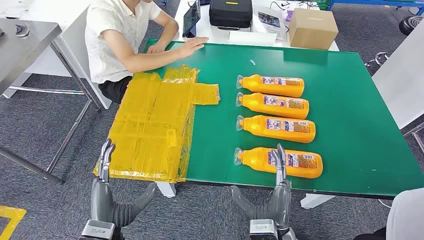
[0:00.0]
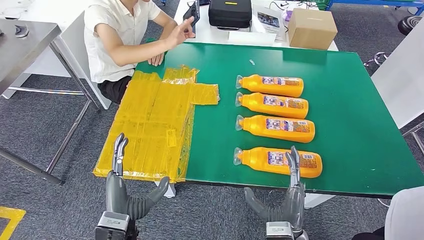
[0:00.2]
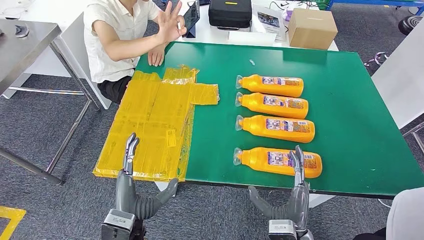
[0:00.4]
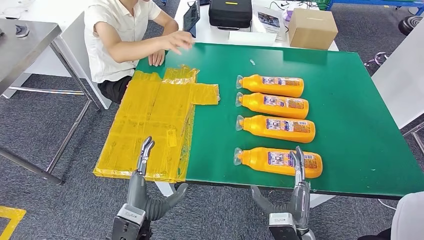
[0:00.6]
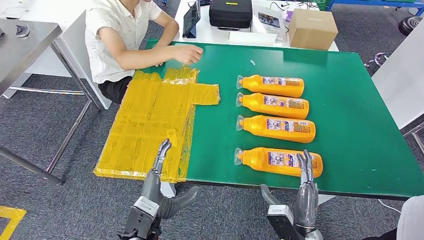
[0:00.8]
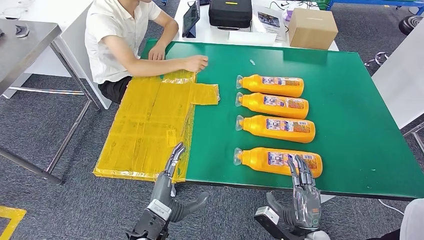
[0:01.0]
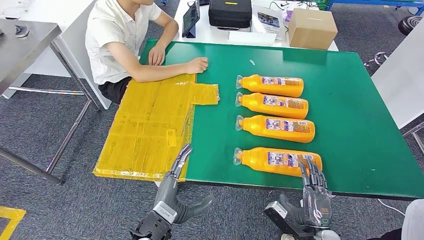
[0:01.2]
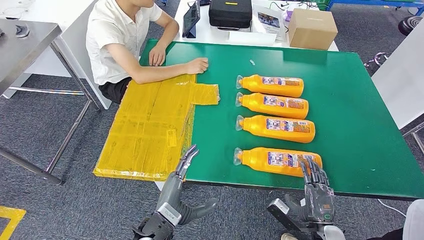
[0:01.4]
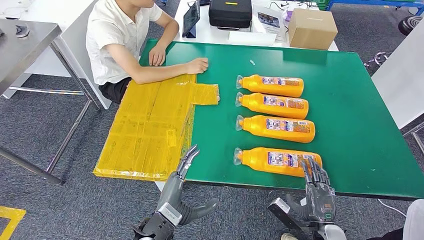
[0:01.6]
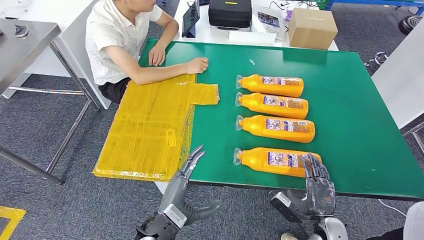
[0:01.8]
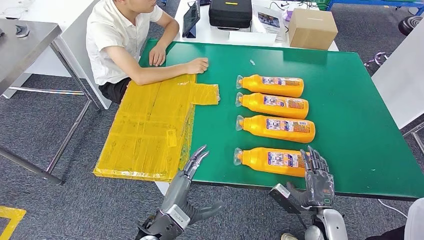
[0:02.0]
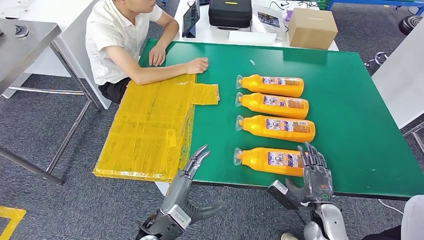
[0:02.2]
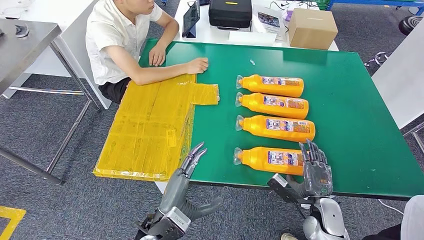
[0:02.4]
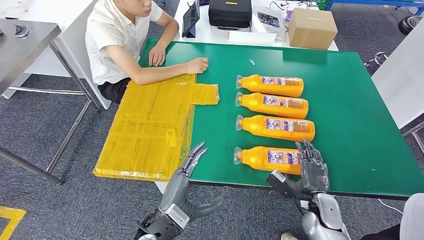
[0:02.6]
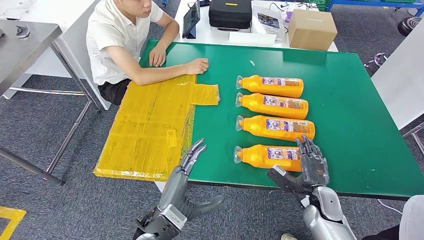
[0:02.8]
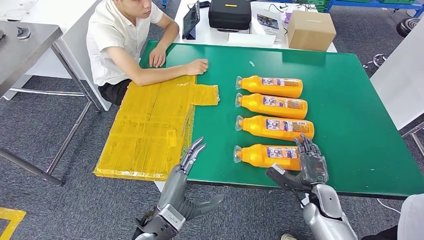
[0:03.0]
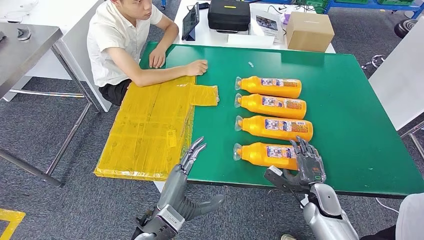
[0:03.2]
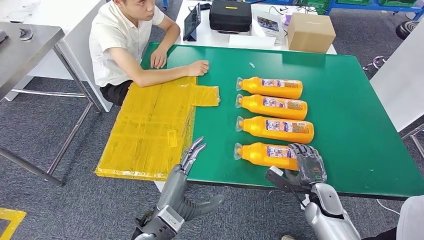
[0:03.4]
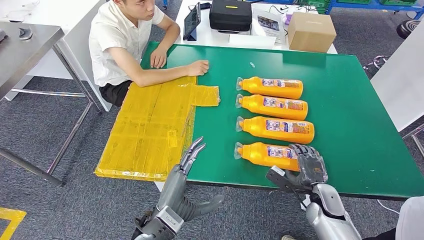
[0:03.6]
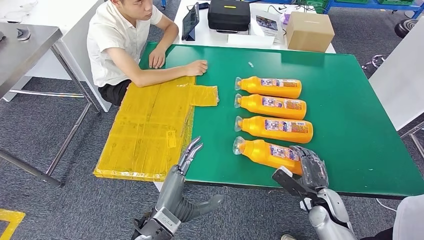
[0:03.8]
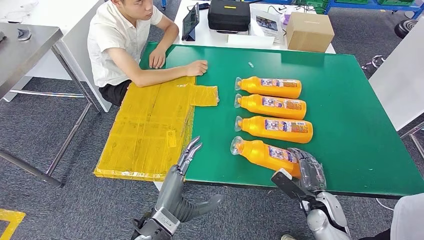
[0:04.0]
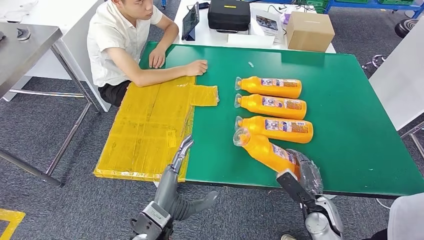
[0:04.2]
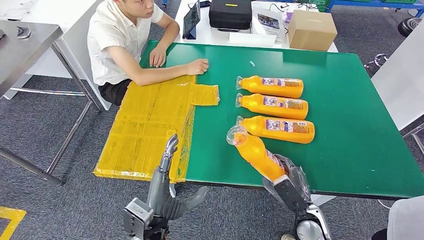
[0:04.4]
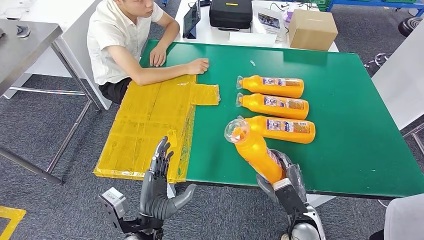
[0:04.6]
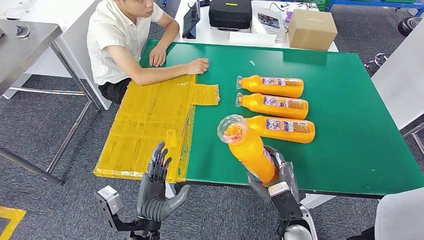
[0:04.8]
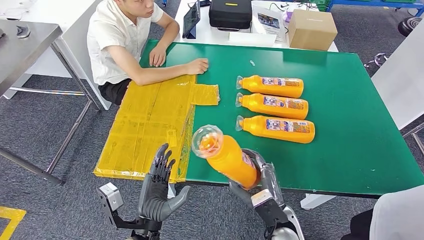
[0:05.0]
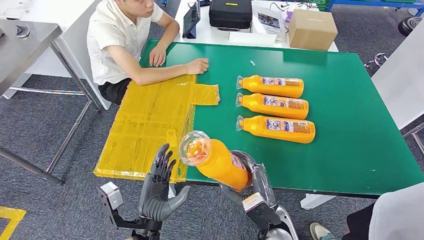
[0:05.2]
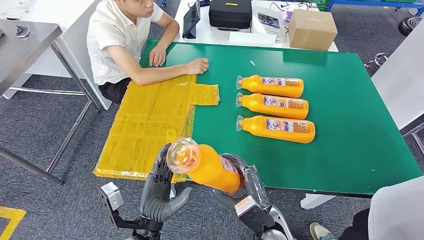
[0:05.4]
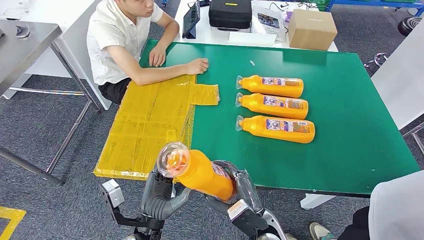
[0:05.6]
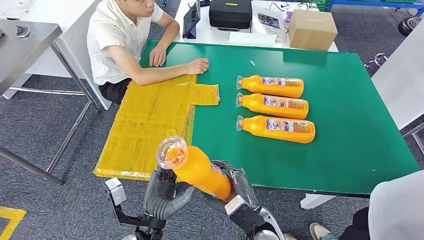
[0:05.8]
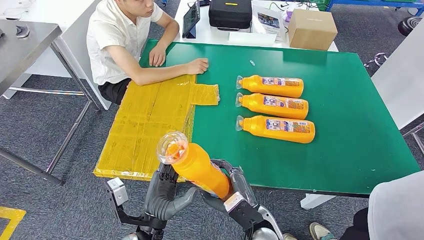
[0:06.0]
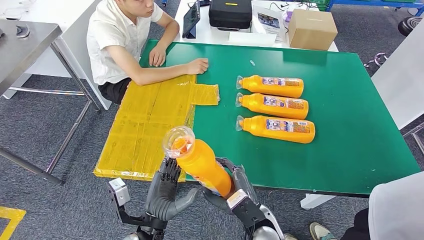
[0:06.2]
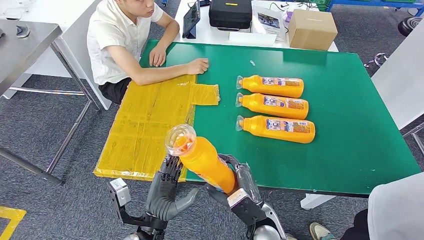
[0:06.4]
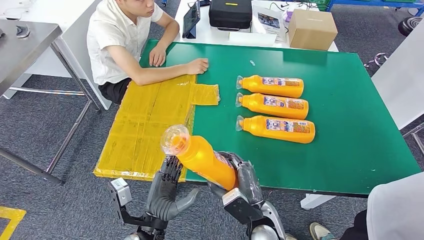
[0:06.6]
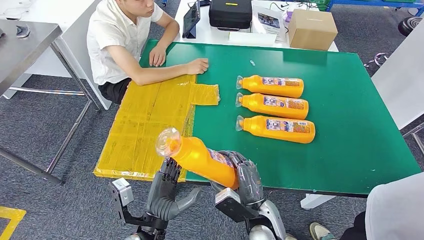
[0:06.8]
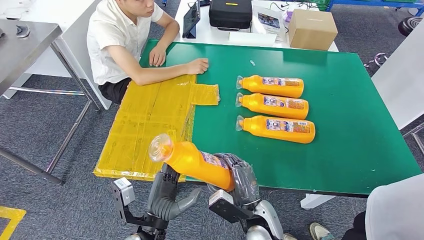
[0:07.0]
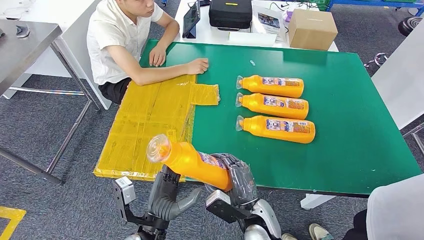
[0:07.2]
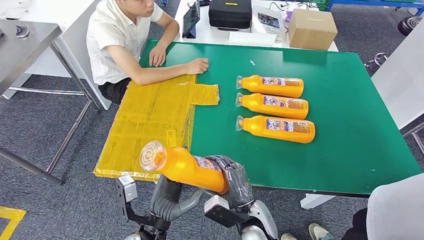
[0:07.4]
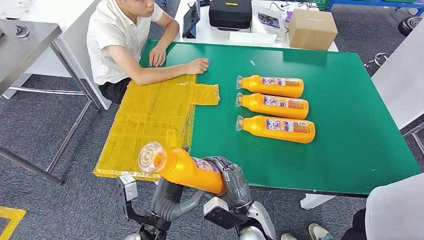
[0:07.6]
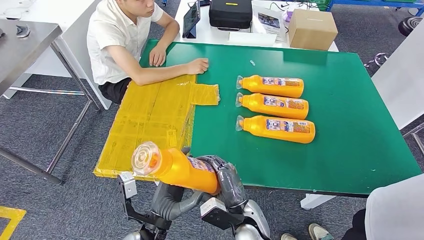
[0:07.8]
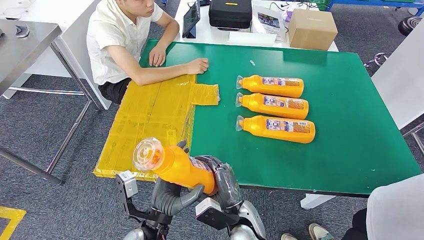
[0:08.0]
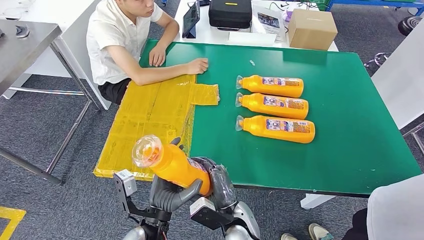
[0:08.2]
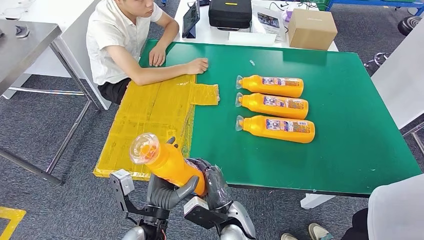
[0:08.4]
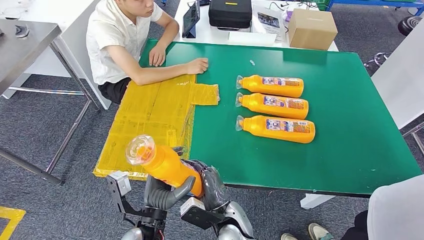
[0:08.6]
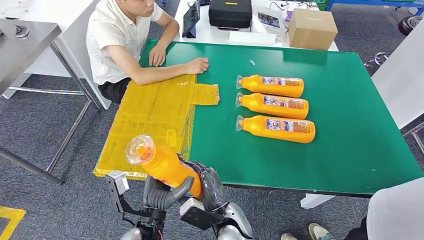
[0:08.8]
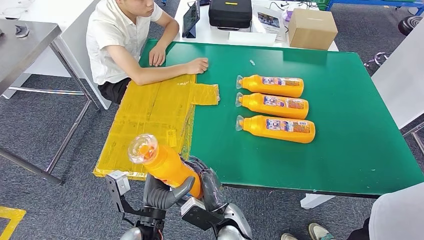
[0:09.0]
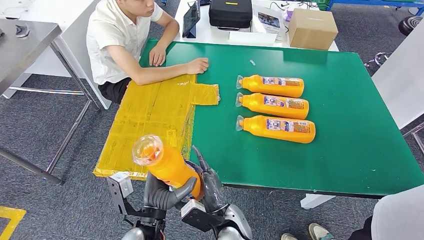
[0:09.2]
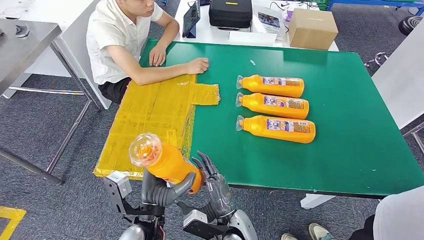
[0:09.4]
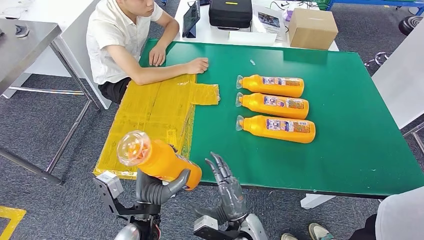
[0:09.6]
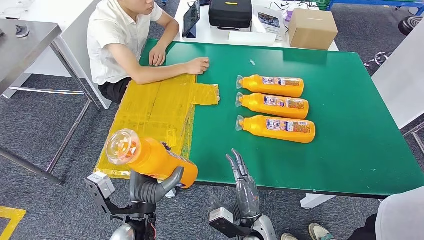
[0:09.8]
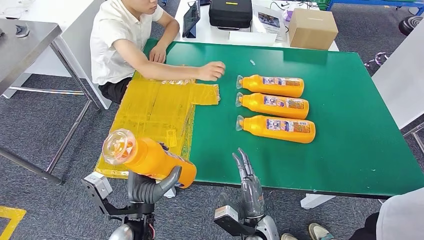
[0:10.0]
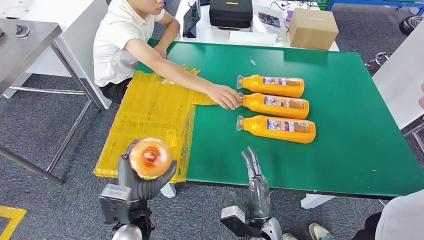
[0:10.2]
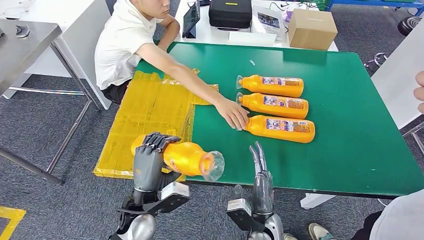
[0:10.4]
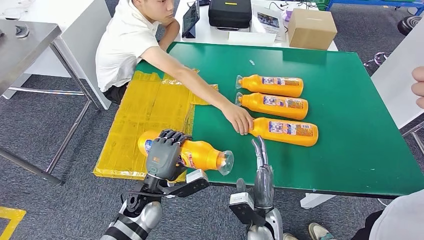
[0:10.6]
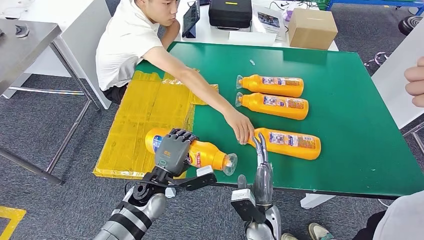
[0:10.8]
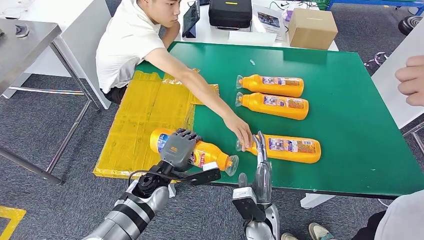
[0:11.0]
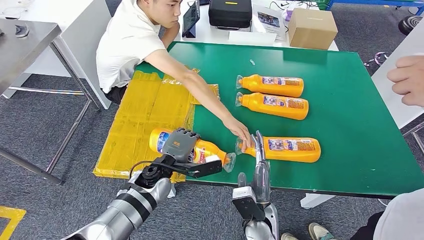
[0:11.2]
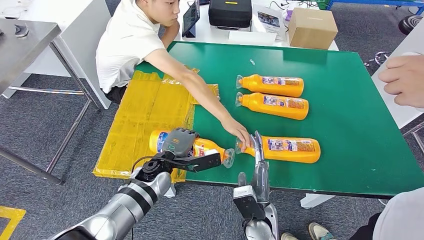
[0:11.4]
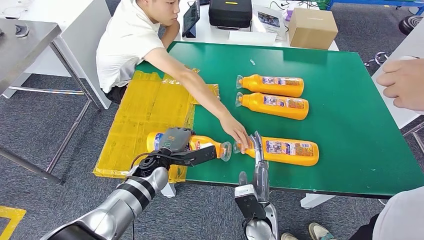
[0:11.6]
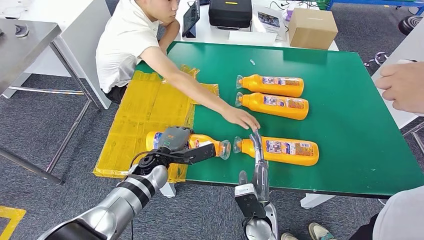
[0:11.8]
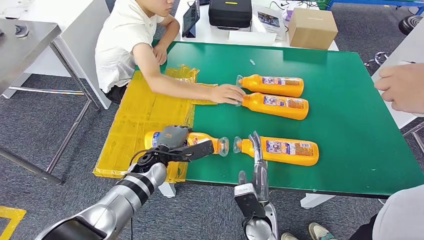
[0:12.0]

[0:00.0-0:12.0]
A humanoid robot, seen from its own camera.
Step, 0:00.0 to 0:06.4: Take the fast-moving consumer goods bottle from the table.
Step, 0:06.8 to 0:11.4: Flip the fast-moving consumer goods bottle to the front side.
0:01.6 to 0:03.0: The right hand heads forward, covering roughly 10 cm.
0:03.0 to 0:04.4: The right hand moves backward, some 5 cm.
0:04.4 to 0:06.0: The right hand is displaced to the left by some 15 cm.
0:07.6 to 0:09.0: The right hand heads to the left, covering about 5 cm.
0:09.0 to 0:10.4: The right hand moves to the right, some 10 cm; the left hand ends up some 5 cm from where it was.

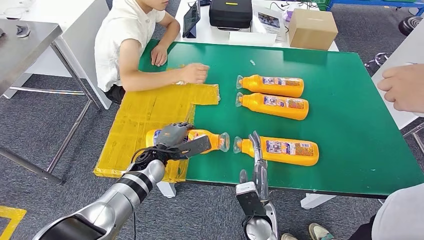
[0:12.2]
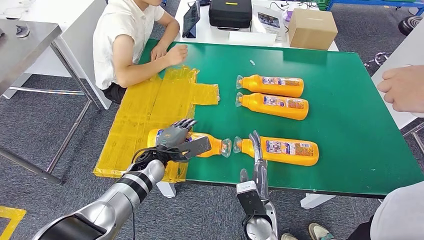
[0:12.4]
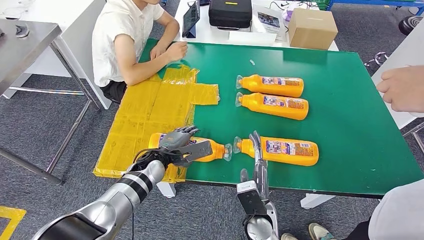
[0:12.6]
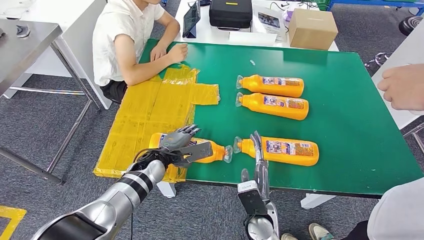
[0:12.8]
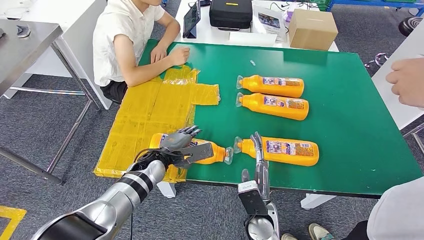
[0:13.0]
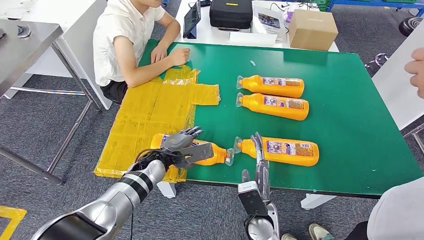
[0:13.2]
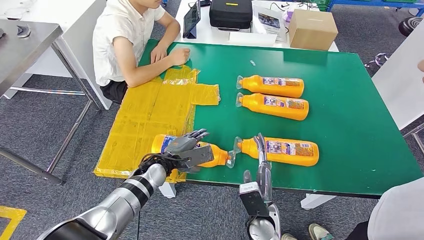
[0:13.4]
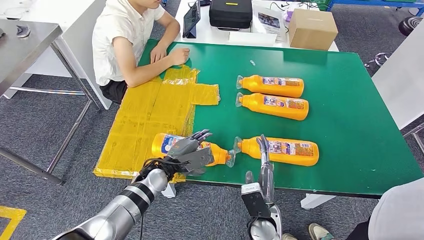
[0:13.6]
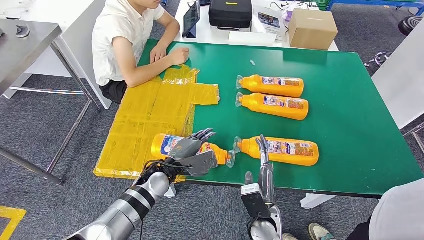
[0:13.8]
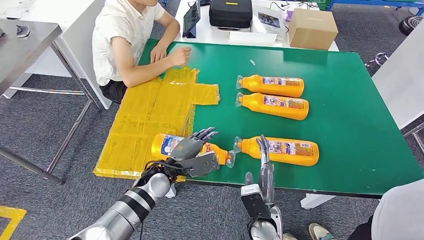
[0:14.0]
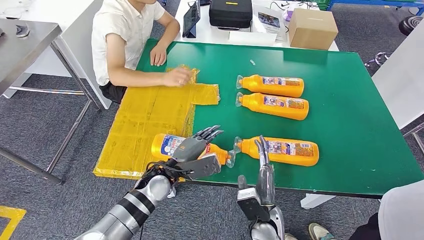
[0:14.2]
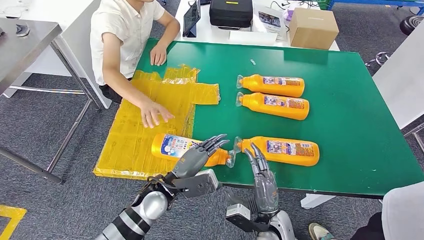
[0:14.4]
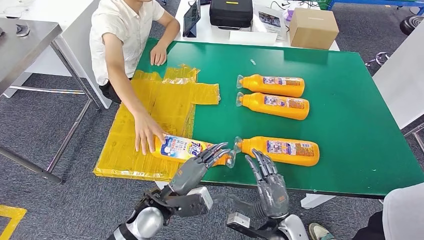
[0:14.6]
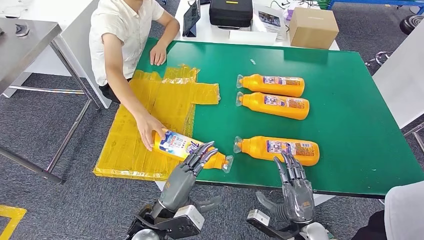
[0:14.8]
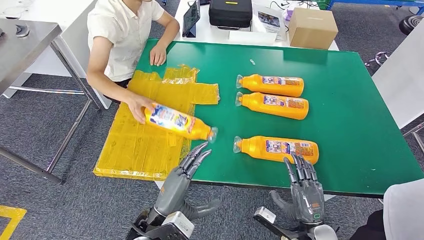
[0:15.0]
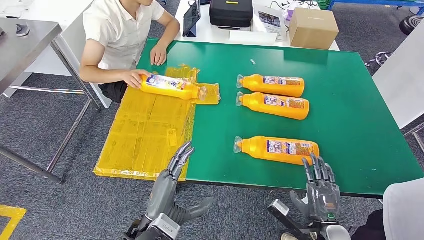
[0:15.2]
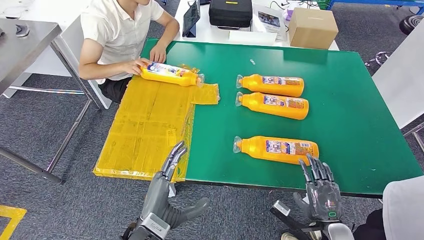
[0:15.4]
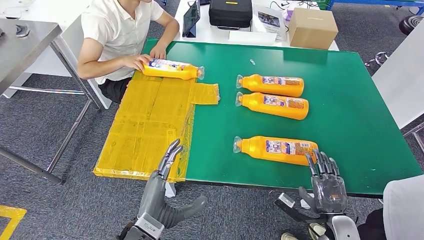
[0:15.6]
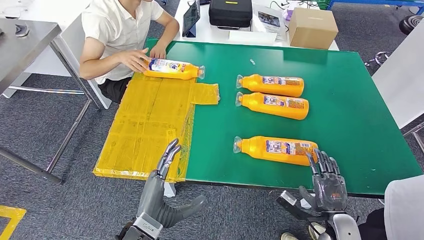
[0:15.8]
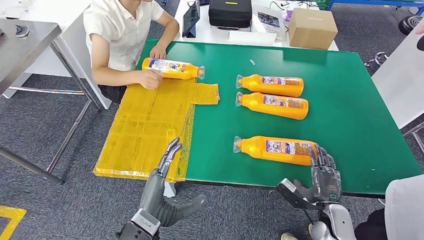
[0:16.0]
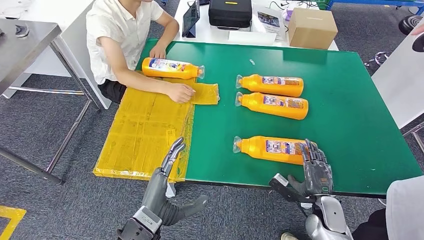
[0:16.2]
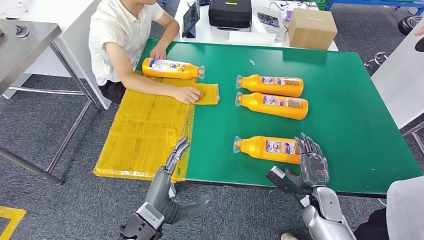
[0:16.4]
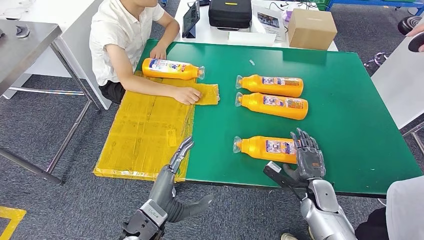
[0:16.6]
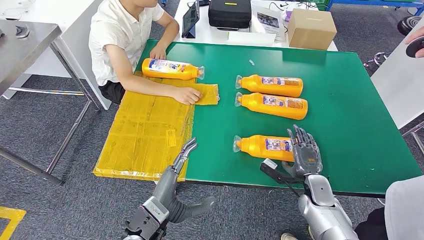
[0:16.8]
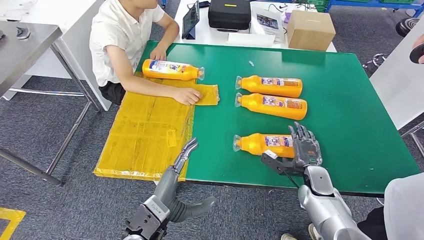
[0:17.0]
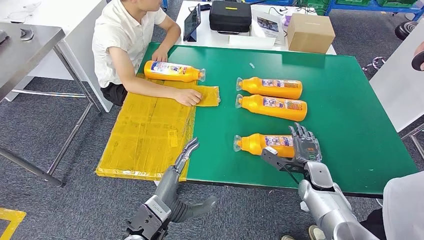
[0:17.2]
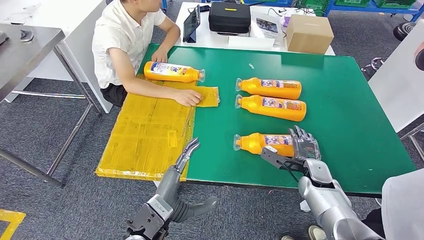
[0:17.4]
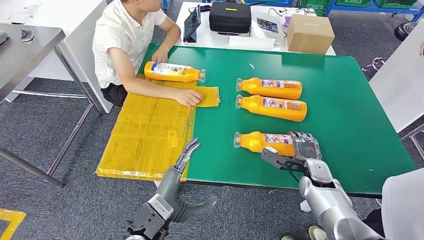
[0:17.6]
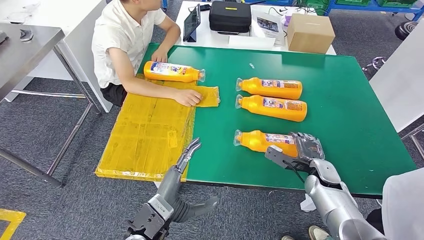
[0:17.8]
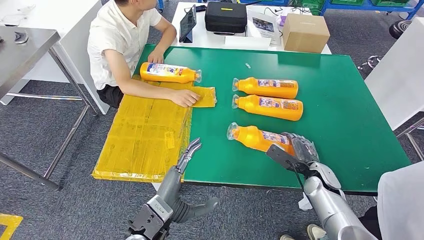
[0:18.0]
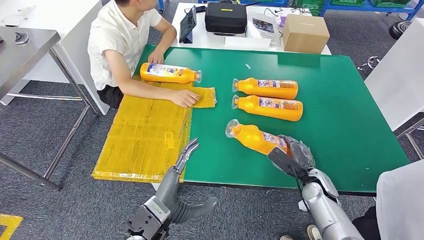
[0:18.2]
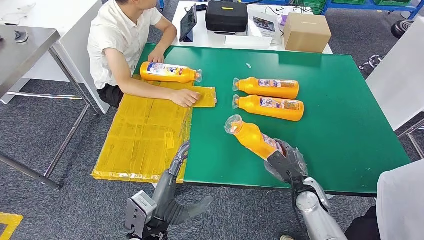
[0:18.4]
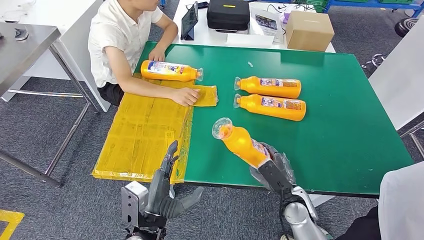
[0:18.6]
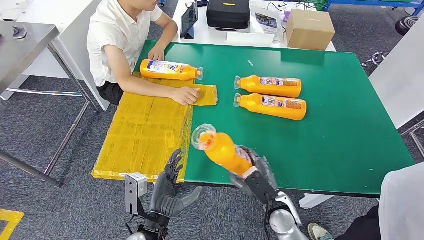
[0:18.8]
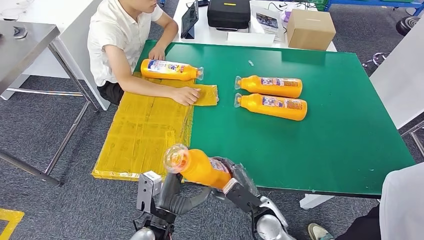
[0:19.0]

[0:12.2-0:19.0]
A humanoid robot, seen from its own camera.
0:12.2 to 0:13.6: The hands make only small movements.
0:13.6 to 0:15.0: The left hand moves backward, approximately 15 cm. Meanwhile the right hand heads to the right, covering roughly 15 cm.
0:15.0 to 0:16.2: The right hand heads forward and to the right, covering roughly 10 cm.
